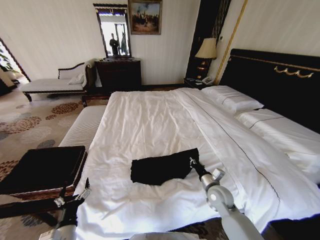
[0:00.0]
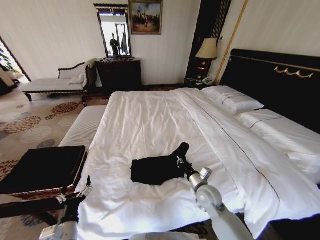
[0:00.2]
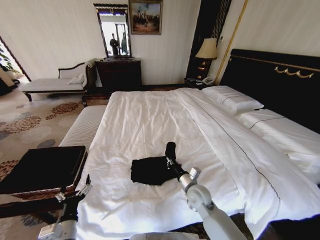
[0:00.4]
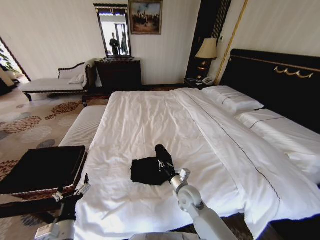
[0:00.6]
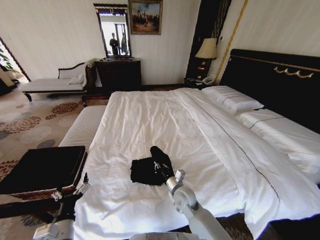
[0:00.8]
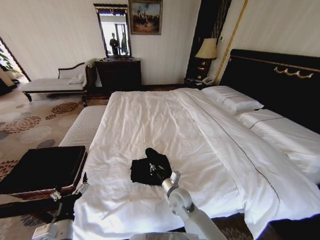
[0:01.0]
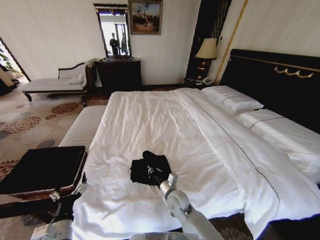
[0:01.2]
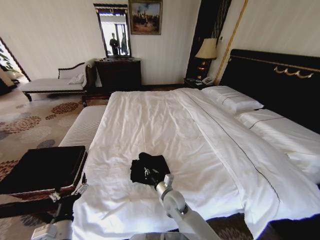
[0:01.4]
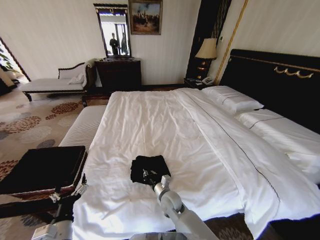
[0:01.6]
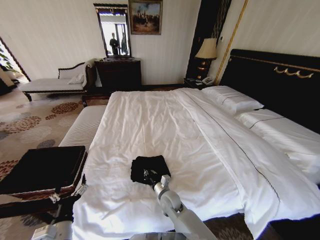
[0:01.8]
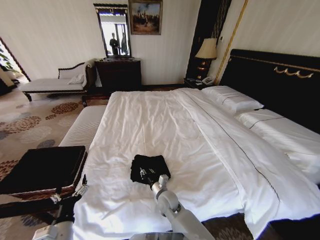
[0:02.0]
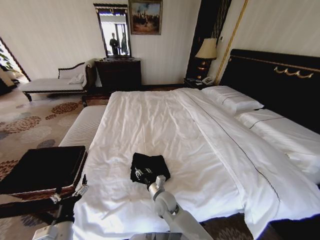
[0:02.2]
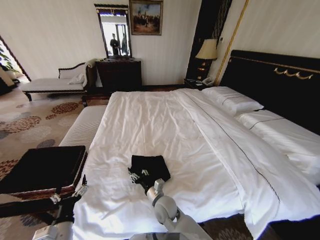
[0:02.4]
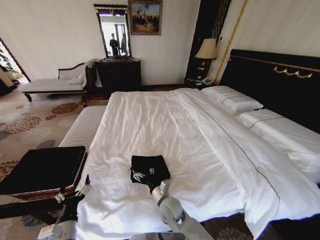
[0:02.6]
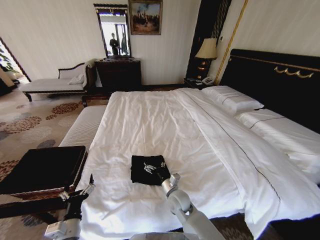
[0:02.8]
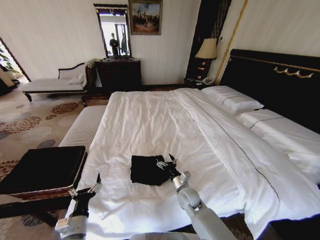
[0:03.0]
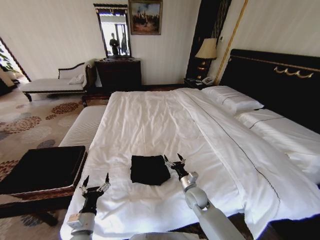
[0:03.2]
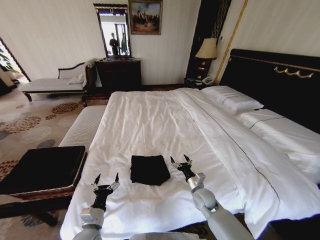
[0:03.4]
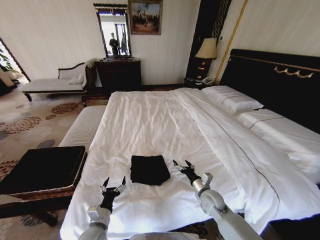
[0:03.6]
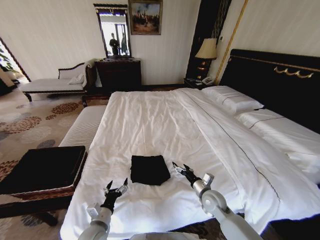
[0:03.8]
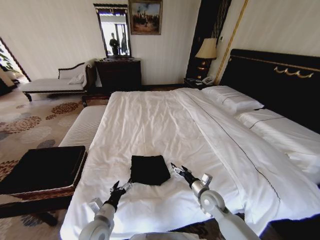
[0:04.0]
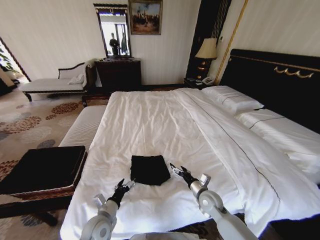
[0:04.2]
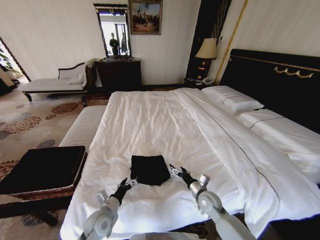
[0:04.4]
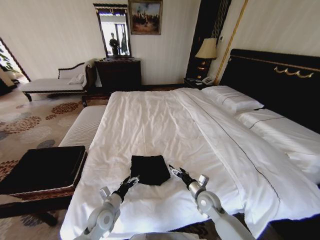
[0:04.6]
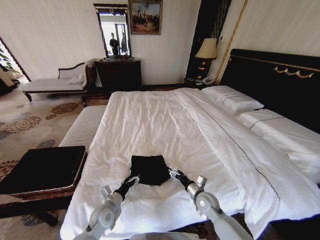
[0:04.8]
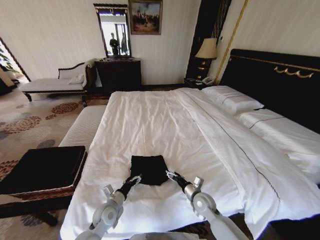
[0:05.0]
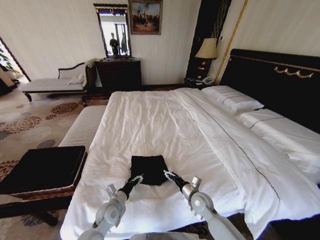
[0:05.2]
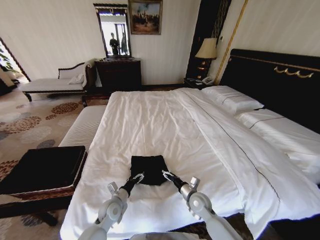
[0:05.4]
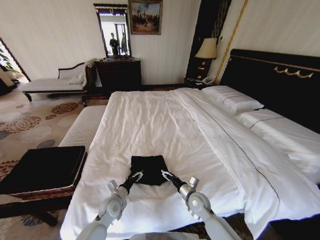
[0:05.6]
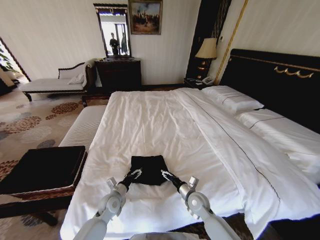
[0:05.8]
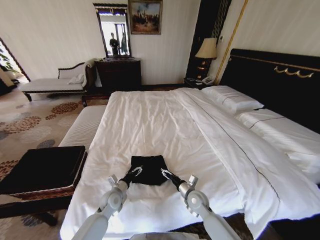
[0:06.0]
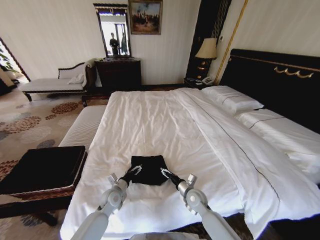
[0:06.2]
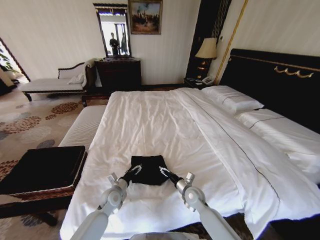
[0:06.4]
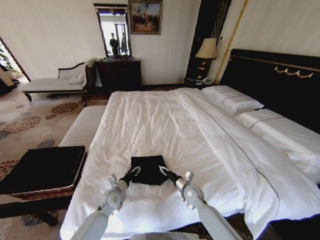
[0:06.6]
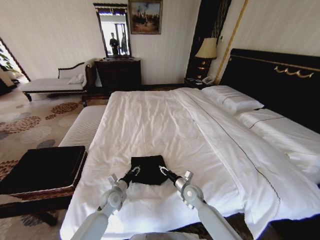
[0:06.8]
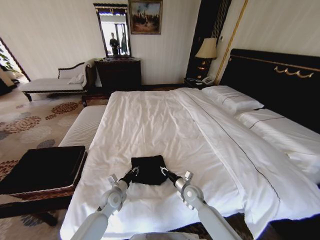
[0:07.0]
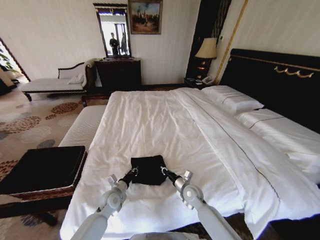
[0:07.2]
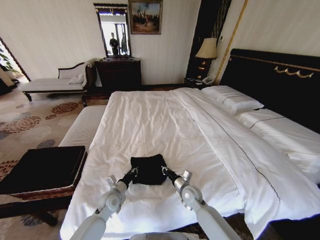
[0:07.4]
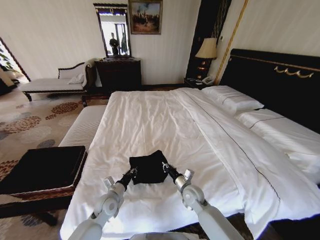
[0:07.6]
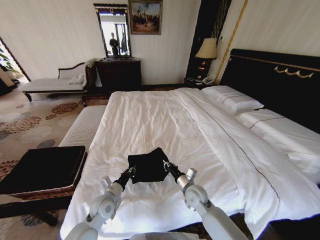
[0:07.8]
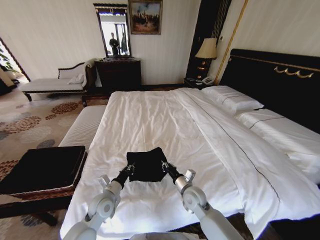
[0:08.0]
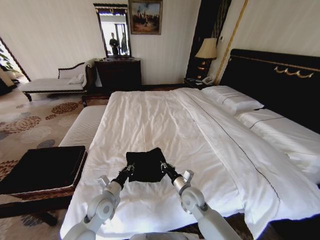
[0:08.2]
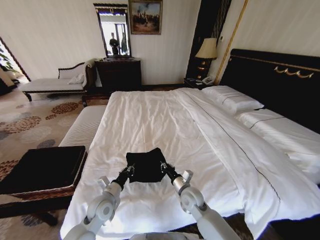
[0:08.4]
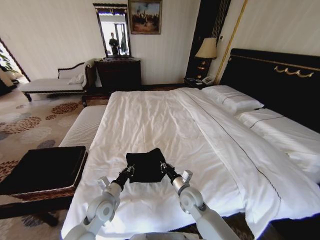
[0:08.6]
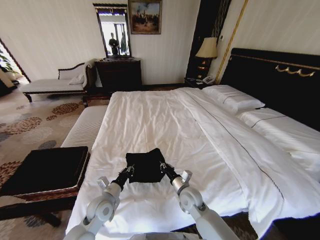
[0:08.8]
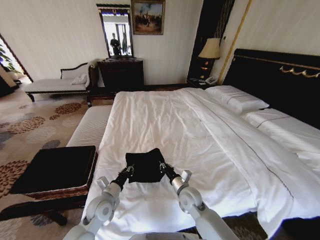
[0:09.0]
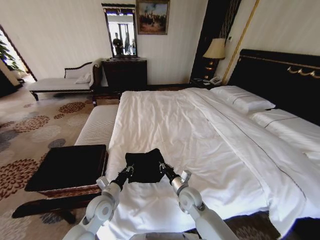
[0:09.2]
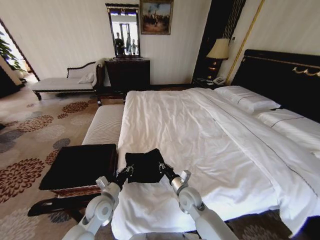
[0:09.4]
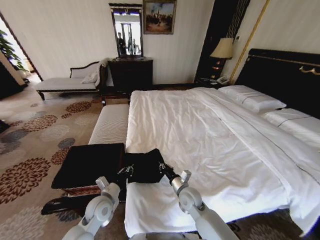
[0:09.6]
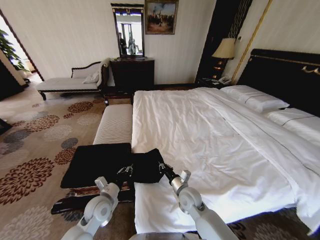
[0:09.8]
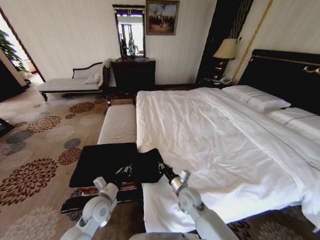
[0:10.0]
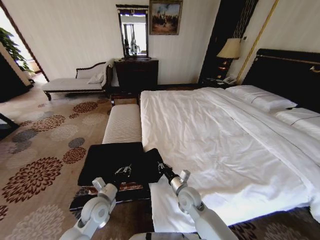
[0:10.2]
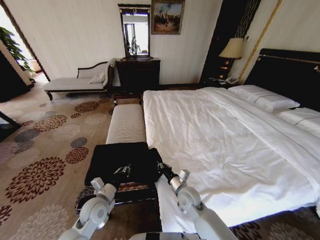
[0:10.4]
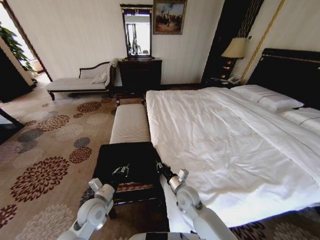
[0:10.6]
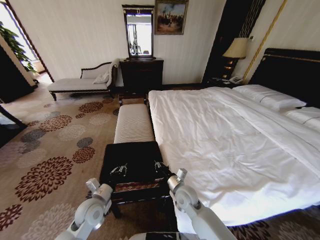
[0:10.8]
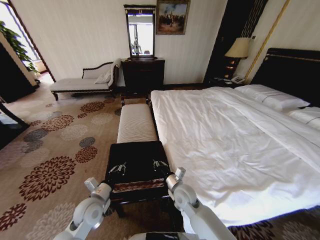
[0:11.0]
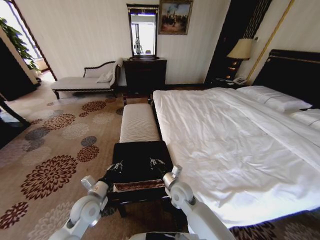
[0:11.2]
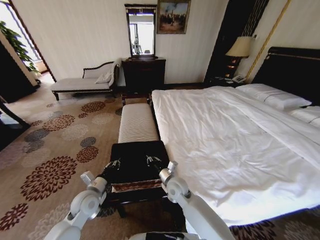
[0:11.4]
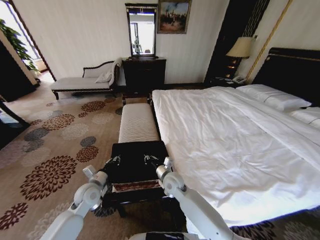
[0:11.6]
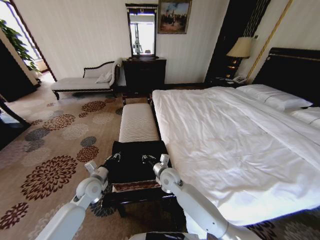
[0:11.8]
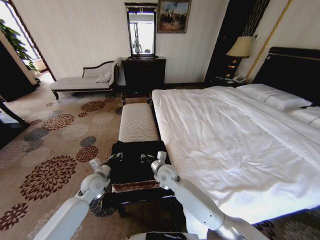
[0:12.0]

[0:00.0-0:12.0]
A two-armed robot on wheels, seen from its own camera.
Task of the whole recording: Fold the clothes on the bed and place them into the basket.
0:00.0 to 0:01.6: The right gripper travels to the left by about 20 cm.
0:01.6 to 0:03.0: The right gripper heads to the right, covering approximately 10 cm, and opens.
0:03.0 to 0:04.4: The left gripper heads forward and to the right, covering approximately 10 cm, while the right gripper heads to the right, covering some 10 cm.
0:04.4 to 0:06.0: The left gripper travels forward by some 10 cm.
0:06.0 to 0:07.6: The right gripper closes its fingers, while the left gripper closes.
0:10.4 to 0:12.0: The left gripper travels forward by approximately 10 cm. The right gripper is displaced to the left and forward by roughly 15 cm.

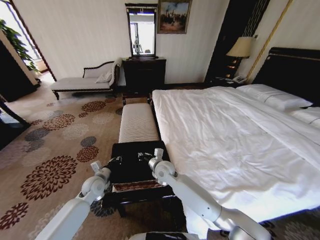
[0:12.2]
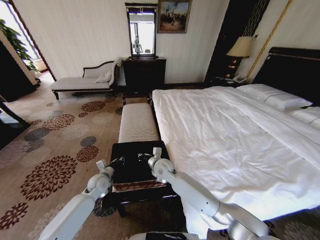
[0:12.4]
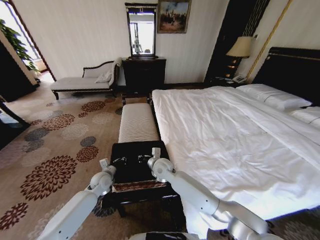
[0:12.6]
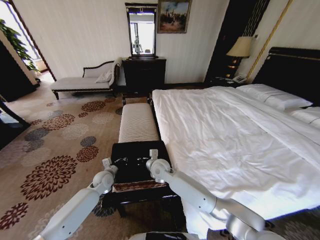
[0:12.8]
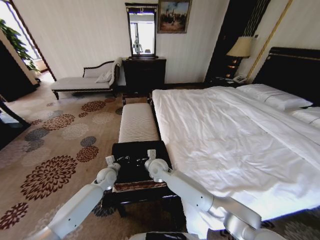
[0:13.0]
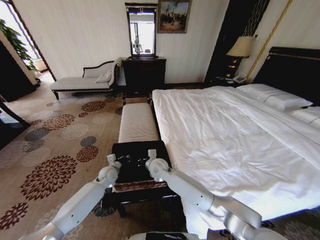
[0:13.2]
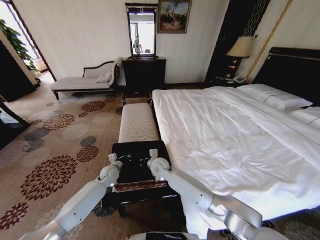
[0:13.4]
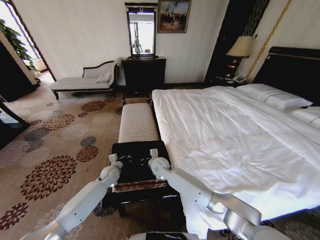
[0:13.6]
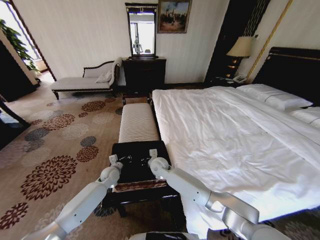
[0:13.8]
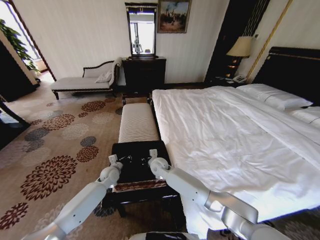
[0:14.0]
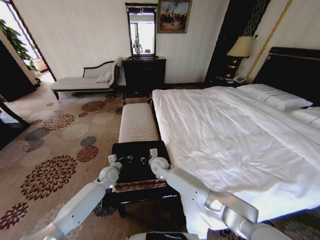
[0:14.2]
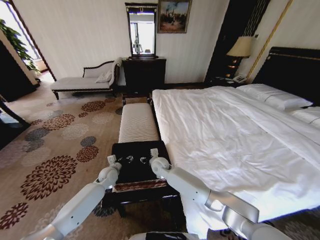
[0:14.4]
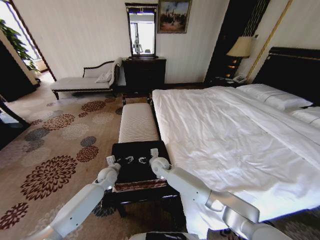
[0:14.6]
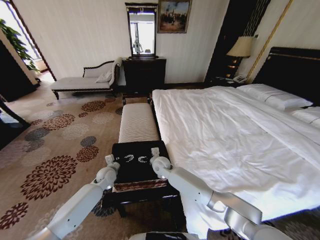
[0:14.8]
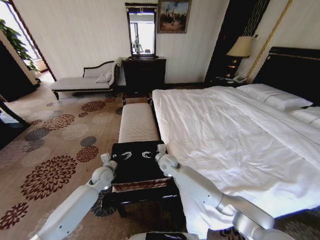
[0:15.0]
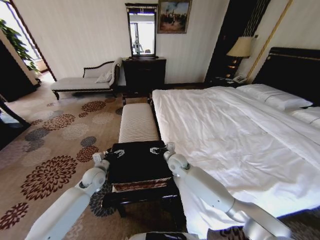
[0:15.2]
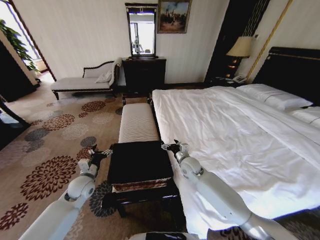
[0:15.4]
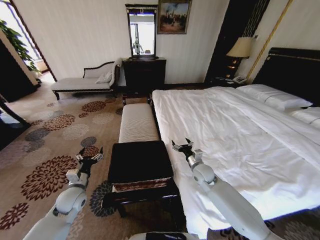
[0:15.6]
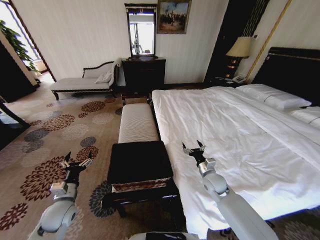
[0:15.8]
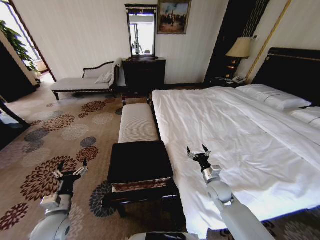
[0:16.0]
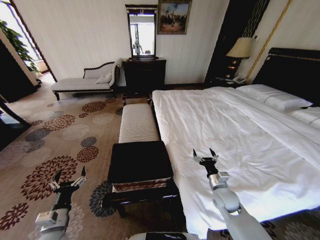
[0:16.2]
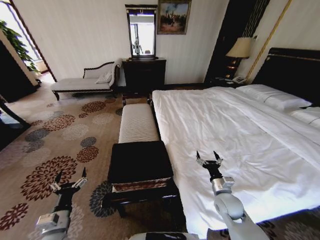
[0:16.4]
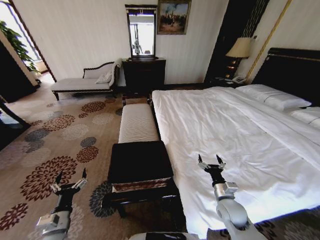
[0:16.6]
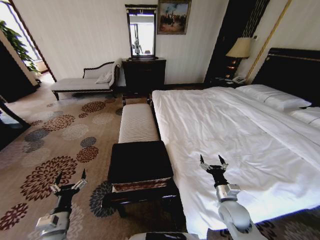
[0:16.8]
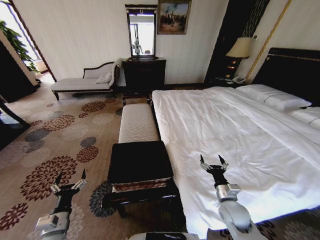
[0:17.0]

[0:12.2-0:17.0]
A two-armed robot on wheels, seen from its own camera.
Task of the whole recording: Fold the clothes on the bed and place them into the basket.
0:12.2 to 0:13.8: The left gripper travels forward by roughly 5 cm. Meanwhile the right gripper changes place by roughly 5 cm.
0:13.8 to 0:15.4: The right gripper moves to the right, about 15 cm, and opens up; the left gripper moves upward, backward and to the left, approximately 15 cm, and opens its fingers.
0:15.4 to 0:17.0: The right gripper heads backward and to the right, covering approximately 25 cm; the left gripper shifts some 20 cm backward.
